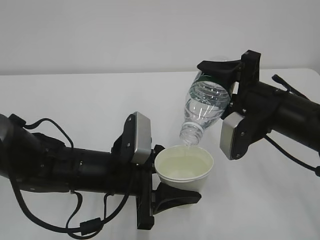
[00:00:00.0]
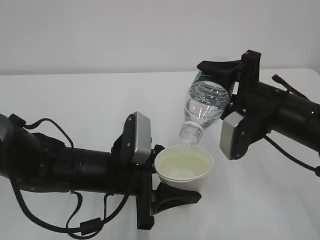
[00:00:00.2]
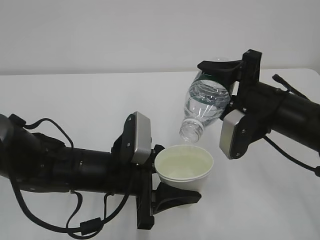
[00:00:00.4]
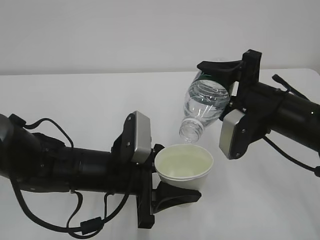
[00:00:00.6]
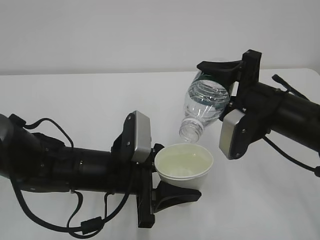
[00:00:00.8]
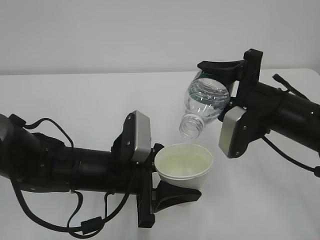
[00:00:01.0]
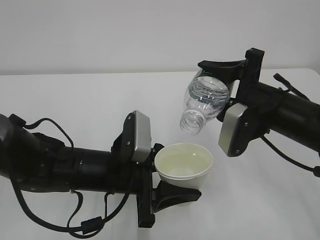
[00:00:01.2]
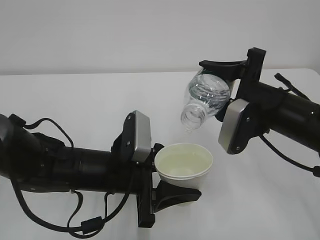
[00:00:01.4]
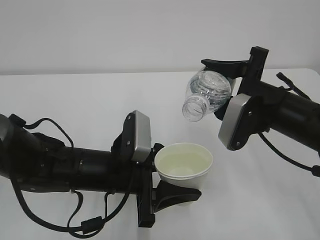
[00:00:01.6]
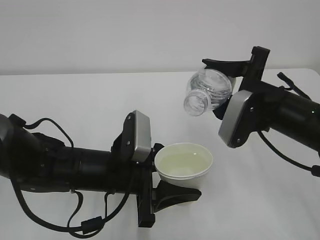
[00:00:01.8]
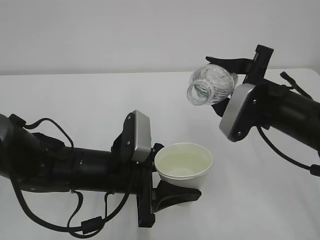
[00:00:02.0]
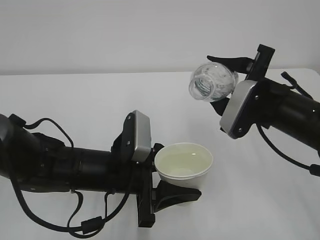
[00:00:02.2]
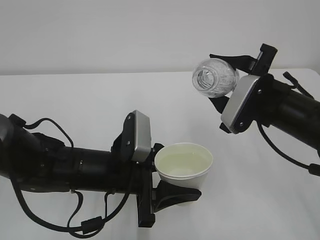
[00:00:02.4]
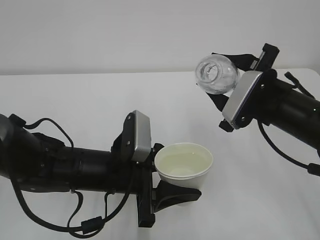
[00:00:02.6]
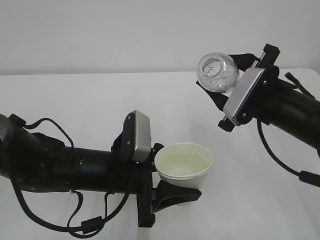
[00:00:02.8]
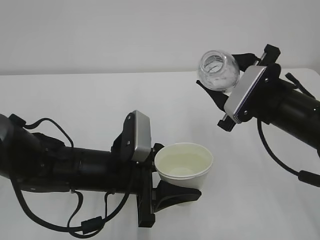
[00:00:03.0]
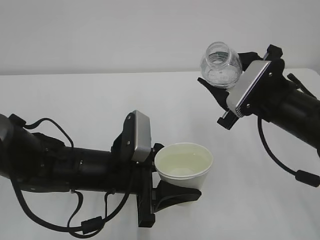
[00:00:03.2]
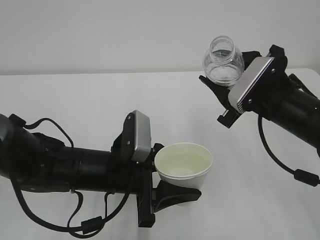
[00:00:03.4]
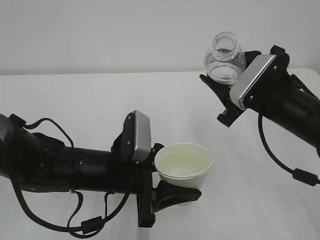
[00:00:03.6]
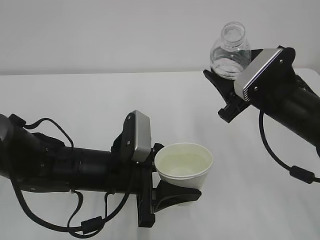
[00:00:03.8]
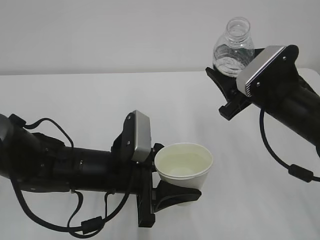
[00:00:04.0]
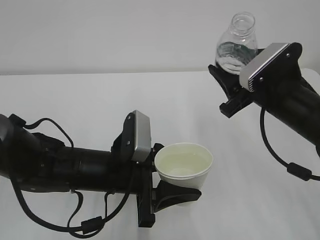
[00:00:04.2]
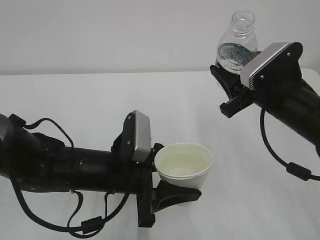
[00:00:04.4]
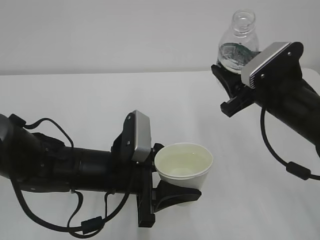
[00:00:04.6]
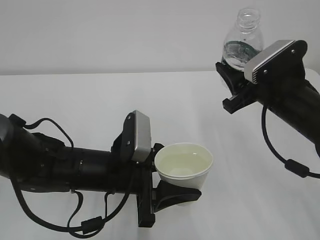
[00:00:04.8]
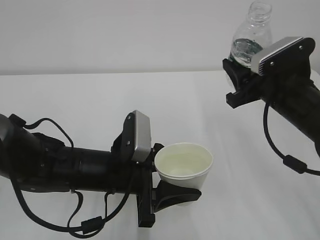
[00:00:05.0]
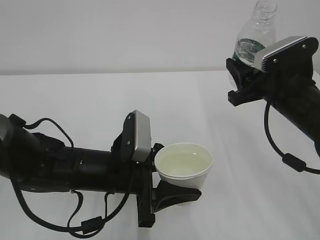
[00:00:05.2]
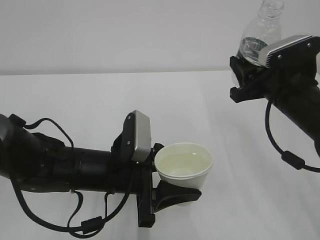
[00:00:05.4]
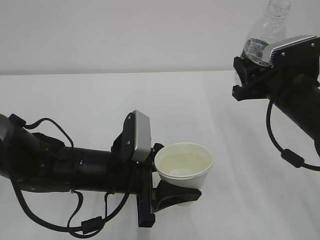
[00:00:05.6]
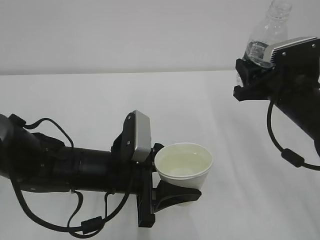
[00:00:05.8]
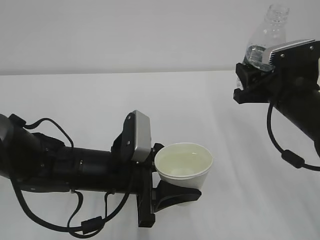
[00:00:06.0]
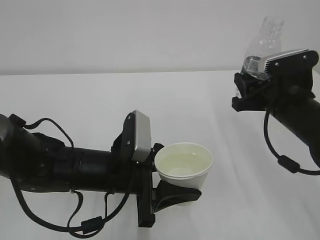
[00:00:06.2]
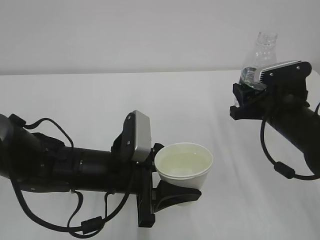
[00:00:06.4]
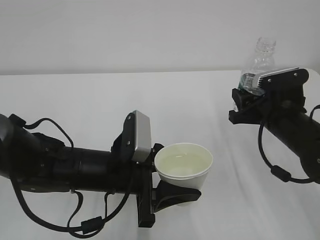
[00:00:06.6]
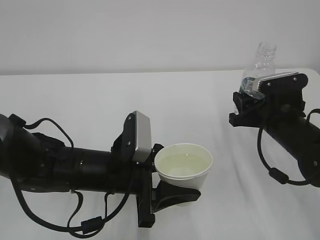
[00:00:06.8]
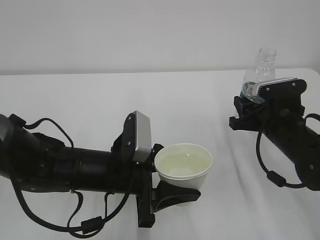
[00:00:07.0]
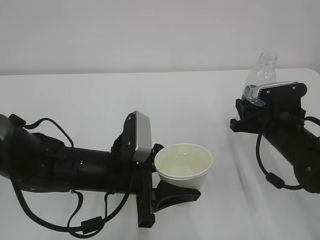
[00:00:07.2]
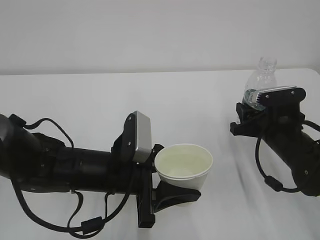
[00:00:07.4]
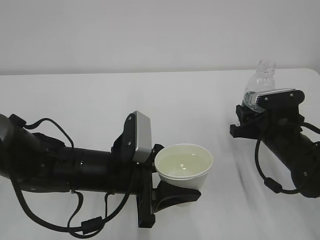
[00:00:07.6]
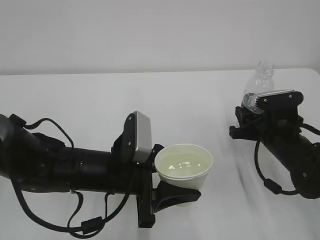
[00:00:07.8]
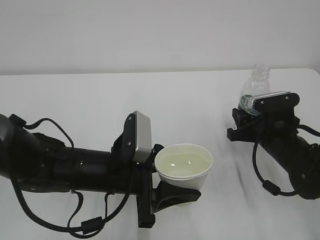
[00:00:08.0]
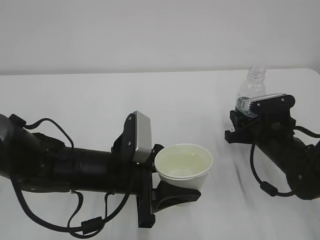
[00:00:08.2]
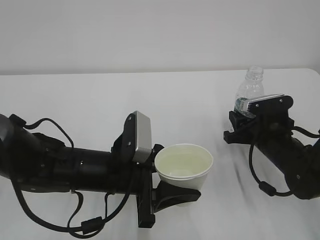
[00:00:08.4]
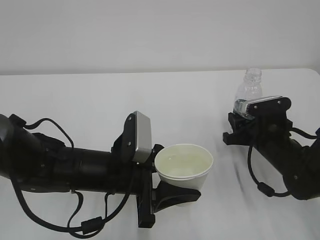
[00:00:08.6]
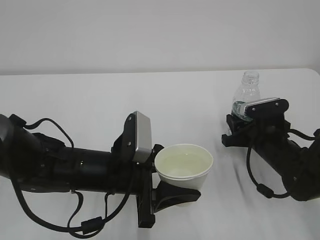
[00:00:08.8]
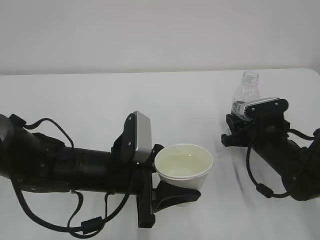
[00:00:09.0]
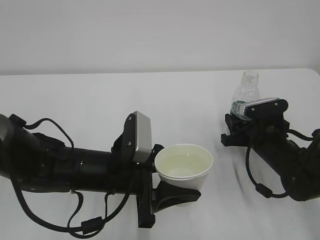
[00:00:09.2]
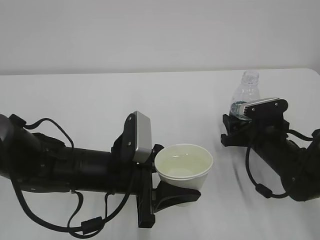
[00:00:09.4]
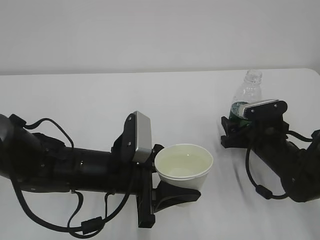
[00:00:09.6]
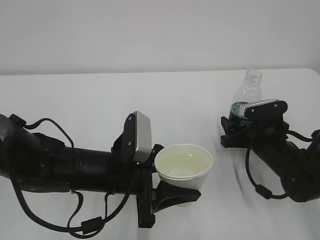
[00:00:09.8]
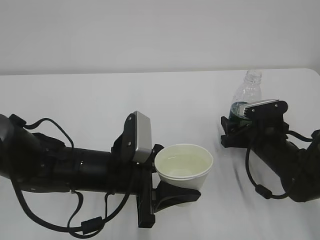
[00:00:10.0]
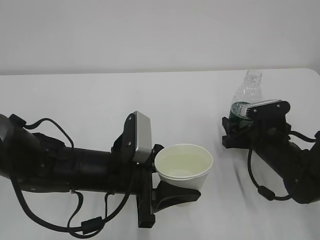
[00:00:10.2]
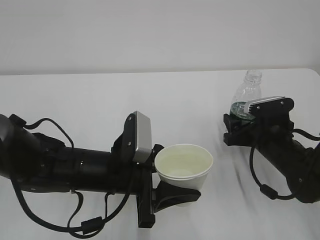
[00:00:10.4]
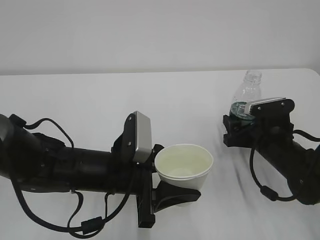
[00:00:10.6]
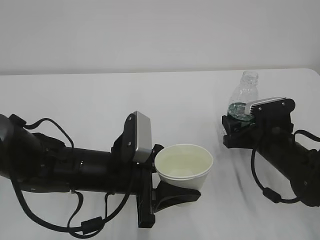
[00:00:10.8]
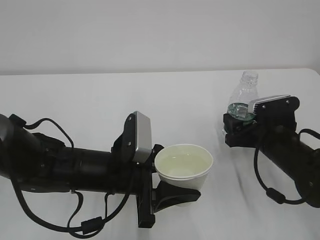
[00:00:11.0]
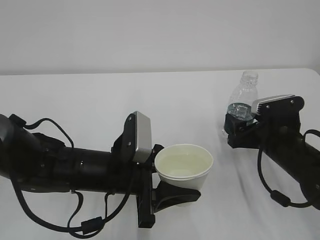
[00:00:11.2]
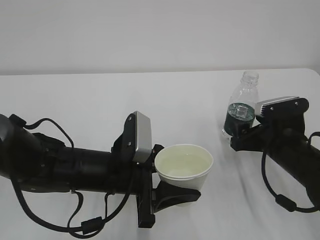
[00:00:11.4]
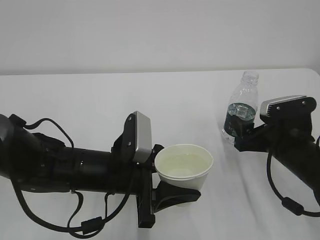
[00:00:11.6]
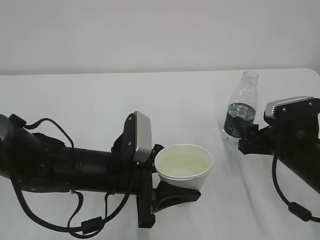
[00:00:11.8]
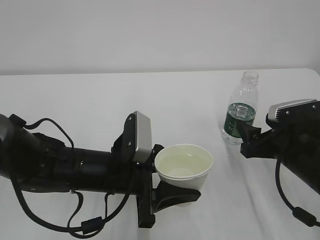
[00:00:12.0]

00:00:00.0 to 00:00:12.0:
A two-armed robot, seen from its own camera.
00:00:00.0 to 00:00:01.6: The grippers make only small movements.
00:00:06.0 to 00:00:07.6: The right gripper goes roughly 10 cm downward.
00:00:07.6 to 00:00:09.0: The grippers stay close to where they were, moving slightly.
00:00:09.0 to 00:00:10.4: The right gripper opens its fingers.
00:00:10.4 to 00:00:12.0: The right gripper heads backward, covering some 5 cm.

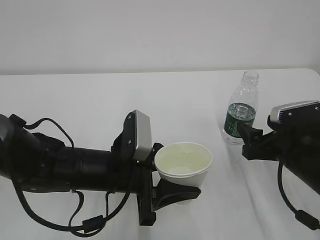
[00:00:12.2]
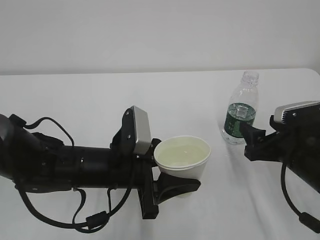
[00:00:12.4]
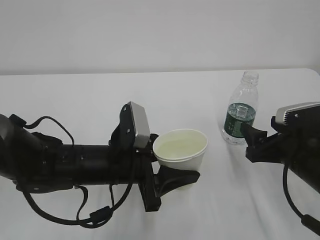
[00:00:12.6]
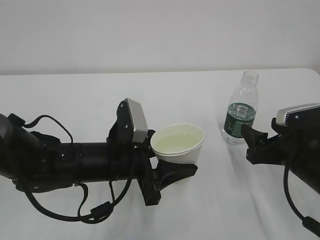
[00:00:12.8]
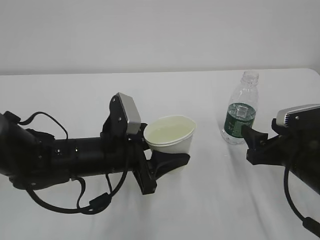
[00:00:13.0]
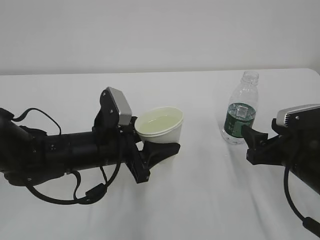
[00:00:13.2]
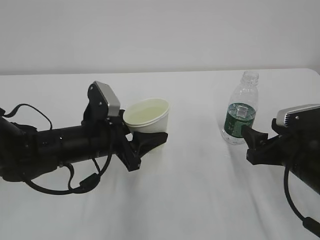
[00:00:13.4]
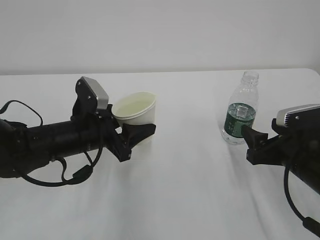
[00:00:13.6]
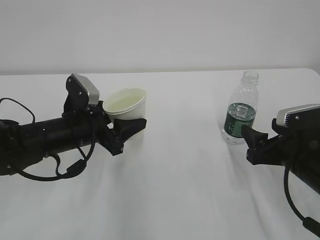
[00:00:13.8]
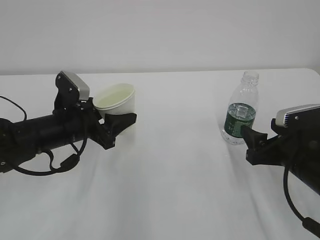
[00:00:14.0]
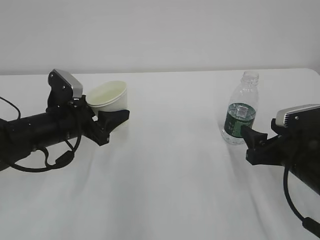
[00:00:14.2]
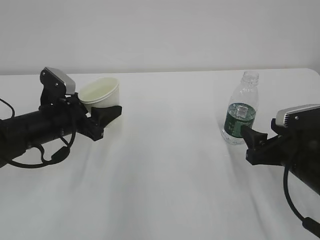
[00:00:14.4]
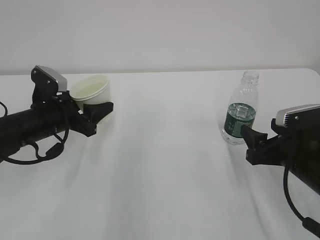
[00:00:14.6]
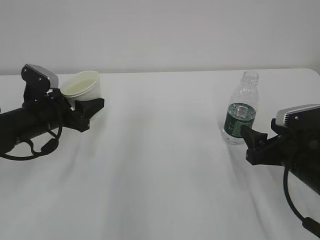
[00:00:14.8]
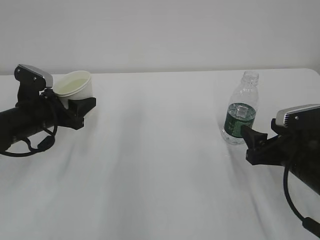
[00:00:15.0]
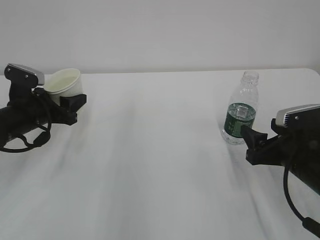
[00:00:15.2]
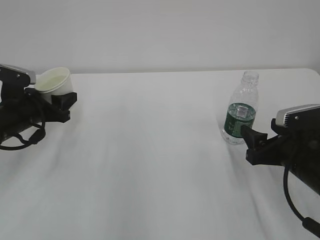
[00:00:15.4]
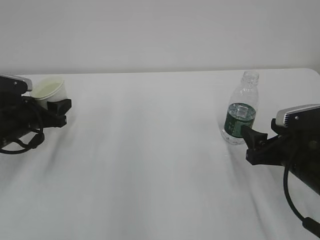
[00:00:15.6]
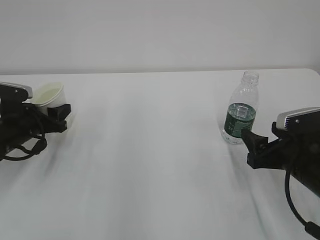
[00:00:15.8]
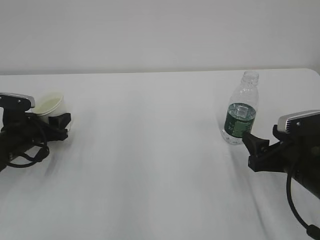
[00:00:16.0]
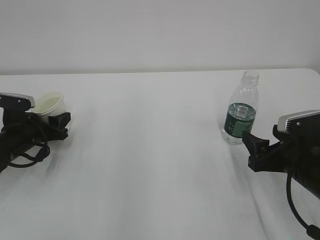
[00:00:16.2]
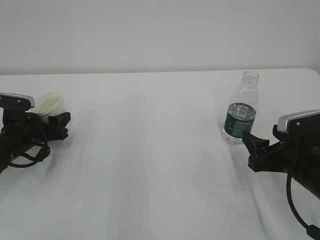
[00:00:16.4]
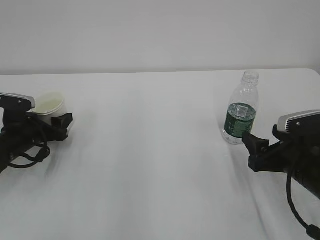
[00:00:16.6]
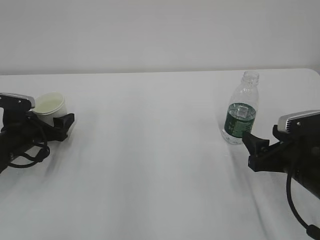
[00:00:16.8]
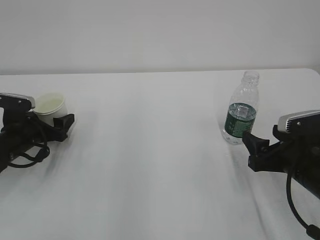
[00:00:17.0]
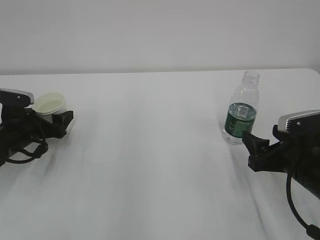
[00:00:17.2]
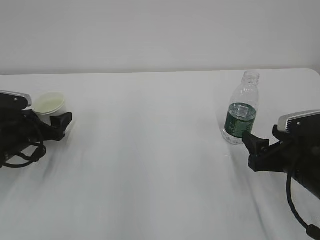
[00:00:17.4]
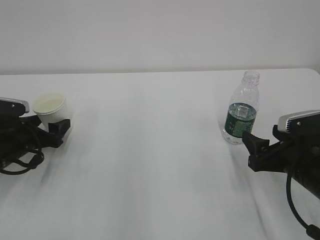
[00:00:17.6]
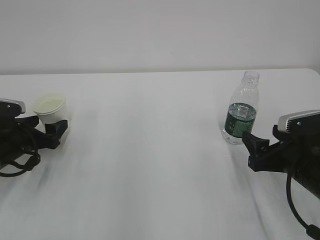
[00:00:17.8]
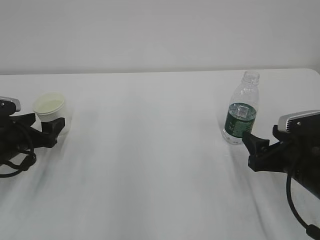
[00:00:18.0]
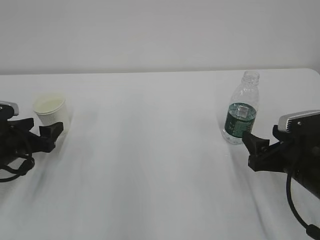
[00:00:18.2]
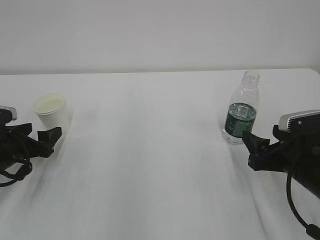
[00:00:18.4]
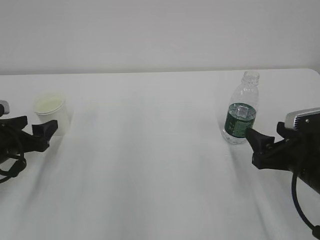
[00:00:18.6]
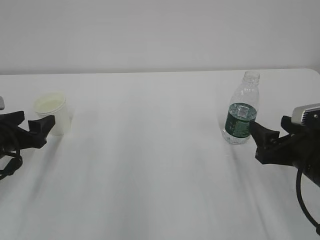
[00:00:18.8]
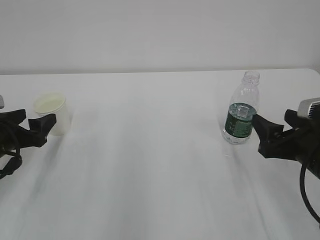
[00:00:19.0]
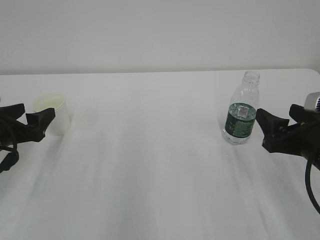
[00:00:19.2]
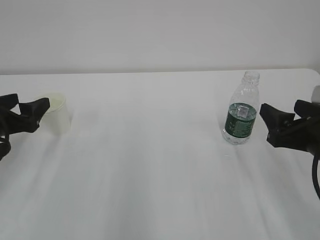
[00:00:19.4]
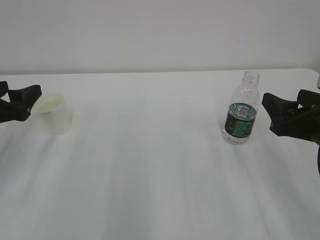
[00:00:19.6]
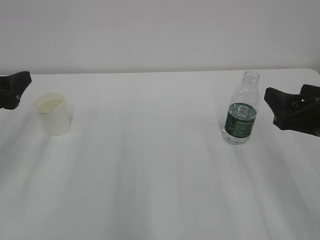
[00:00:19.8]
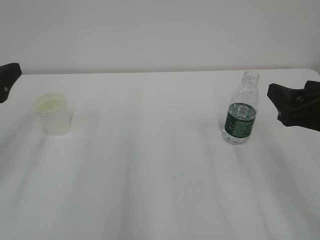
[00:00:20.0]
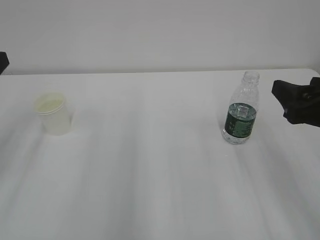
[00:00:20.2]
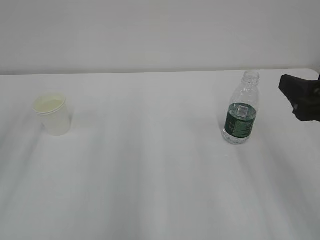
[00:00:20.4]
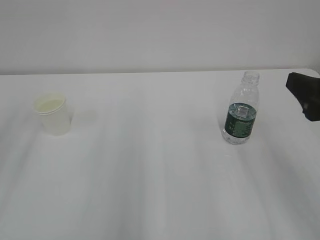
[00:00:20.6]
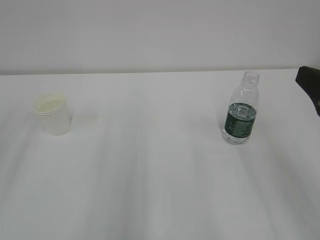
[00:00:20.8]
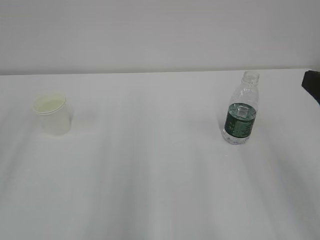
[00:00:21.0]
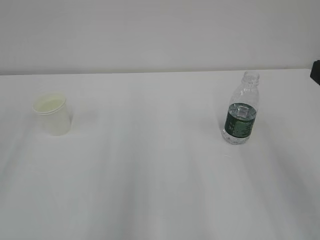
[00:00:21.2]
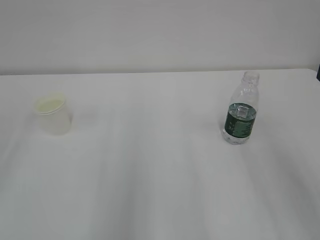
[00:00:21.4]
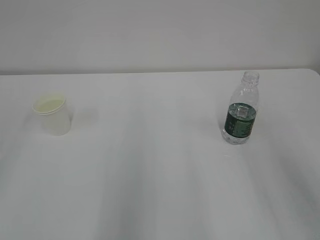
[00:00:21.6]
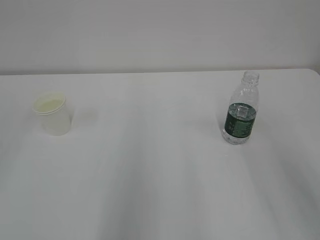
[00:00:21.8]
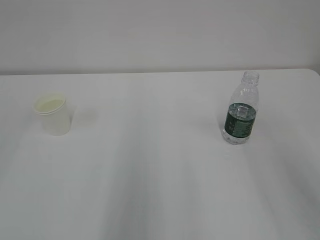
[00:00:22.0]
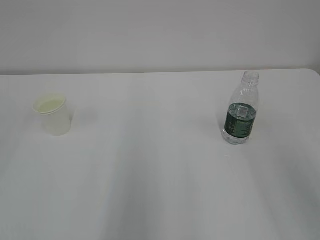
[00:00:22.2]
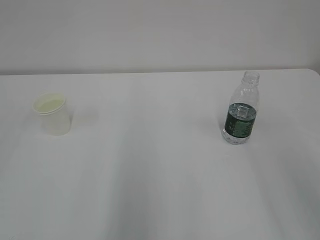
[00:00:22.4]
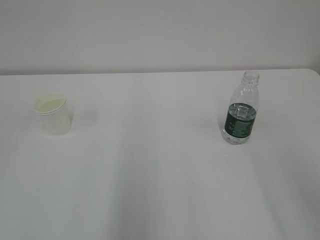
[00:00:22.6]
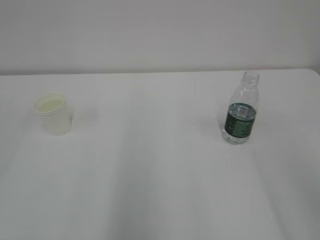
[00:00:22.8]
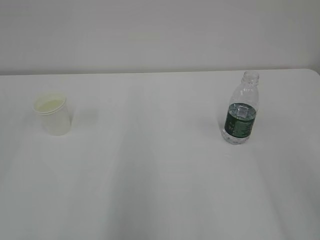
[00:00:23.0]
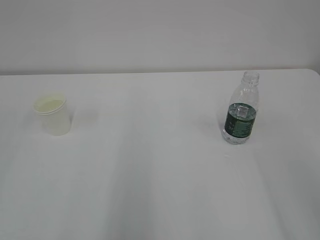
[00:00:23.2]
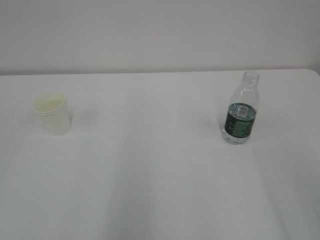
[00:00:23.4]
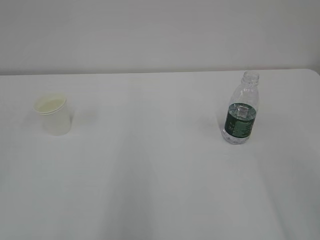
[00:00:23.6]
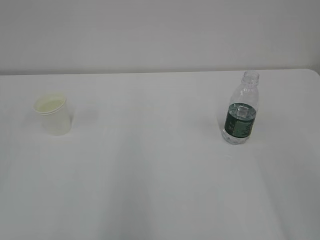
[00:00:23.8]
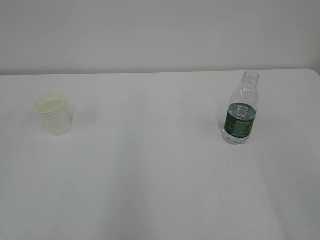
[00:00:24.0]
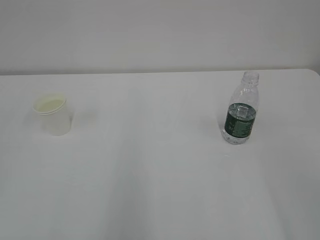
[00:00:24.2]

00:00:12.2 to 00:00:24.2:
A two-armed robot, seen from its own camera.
00:00:12.2 to 00:00:13.8: The left gripper is displaced to the left and forward by some 10 cm.
00:00:13.8 to 00:00:15.2: The left gripper is displaced to the left by approximately 10 cm.
00:00:15.2 to 00:00:16.6: The left gripper moves downward, roughly 5 cm, and opens up.
00:00:16.6 to 00:00:18.2: The left gripper moves approximately 5 cm, and opens.
00:00:18.2 to 00:00:19.8: Both grippers travel together upward, some 10 cm.
00:00:19.8 to 00:00:21.2: The left gripper moves backward and upward, some 15 cm. The right gripper heads upward and backward, covering about 10 cm.
00:00:21.2 to 00:00:22.6: The right gripper is displaced backward by about 5 cm.
